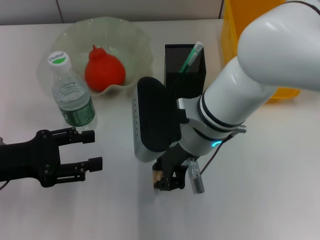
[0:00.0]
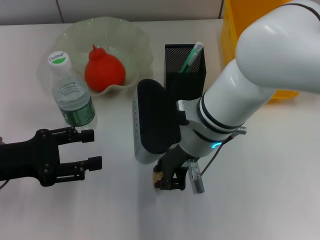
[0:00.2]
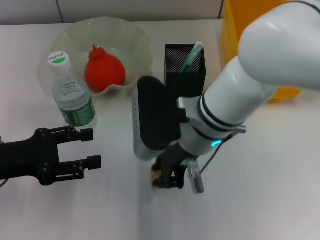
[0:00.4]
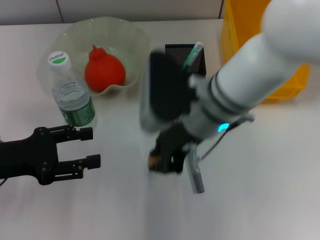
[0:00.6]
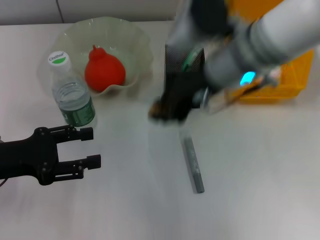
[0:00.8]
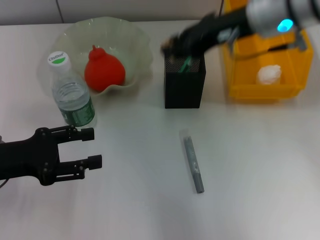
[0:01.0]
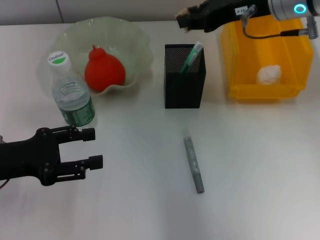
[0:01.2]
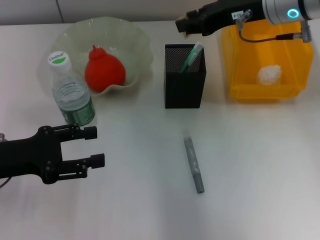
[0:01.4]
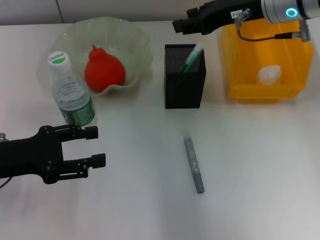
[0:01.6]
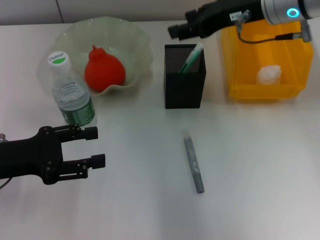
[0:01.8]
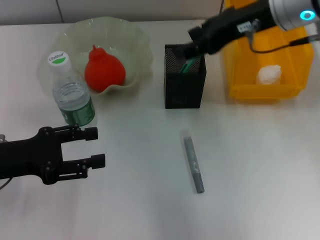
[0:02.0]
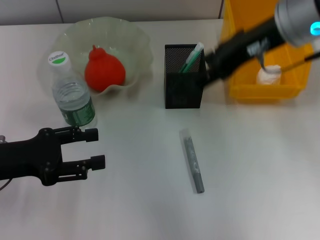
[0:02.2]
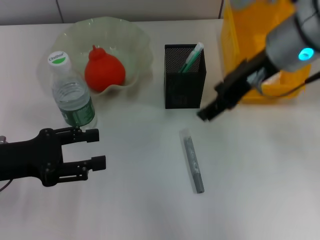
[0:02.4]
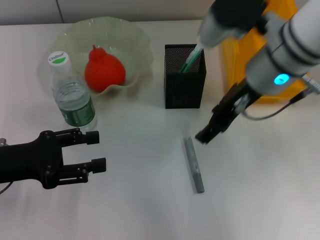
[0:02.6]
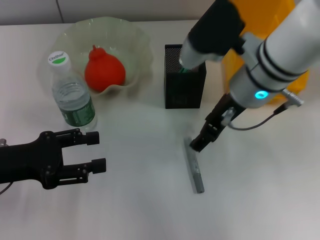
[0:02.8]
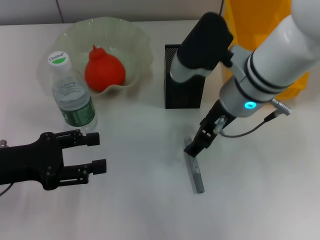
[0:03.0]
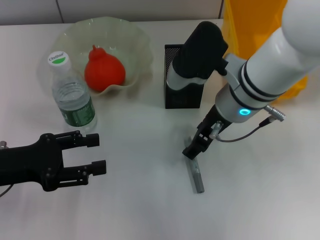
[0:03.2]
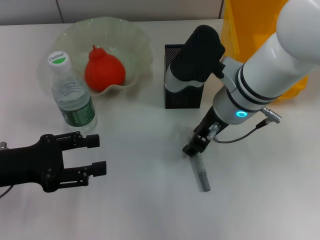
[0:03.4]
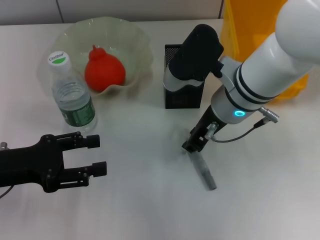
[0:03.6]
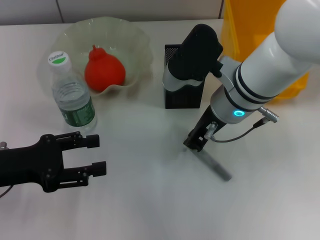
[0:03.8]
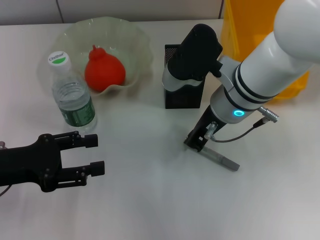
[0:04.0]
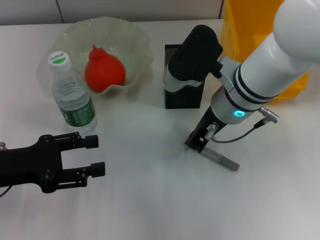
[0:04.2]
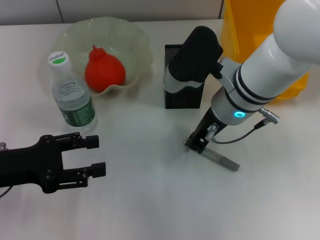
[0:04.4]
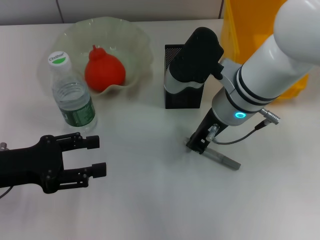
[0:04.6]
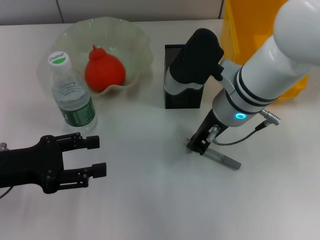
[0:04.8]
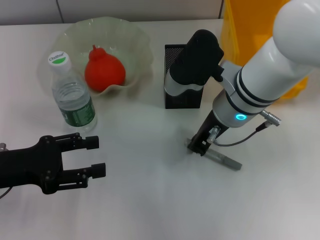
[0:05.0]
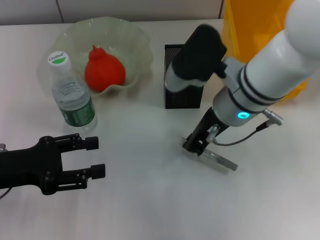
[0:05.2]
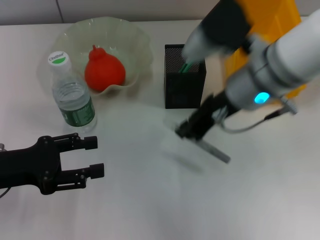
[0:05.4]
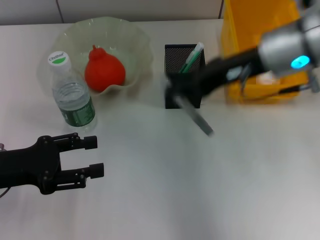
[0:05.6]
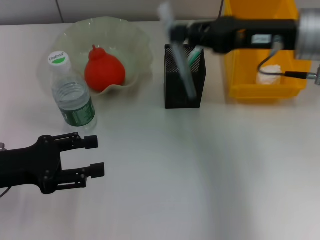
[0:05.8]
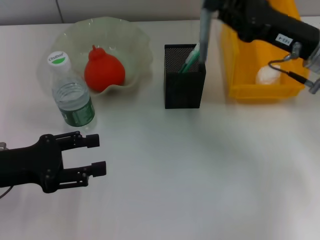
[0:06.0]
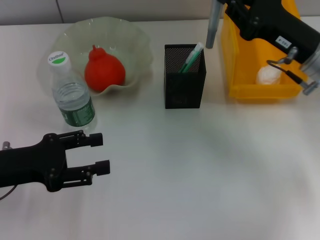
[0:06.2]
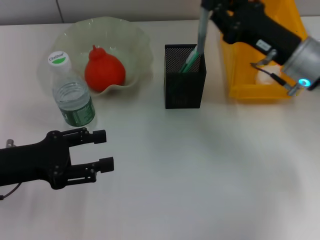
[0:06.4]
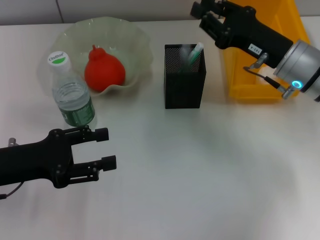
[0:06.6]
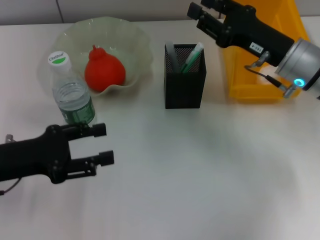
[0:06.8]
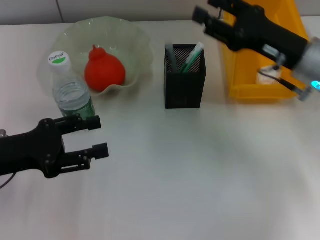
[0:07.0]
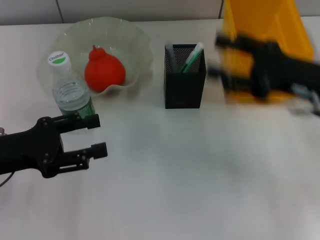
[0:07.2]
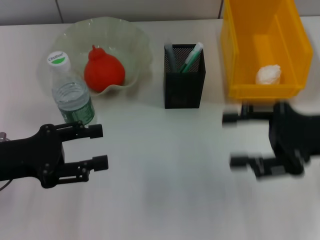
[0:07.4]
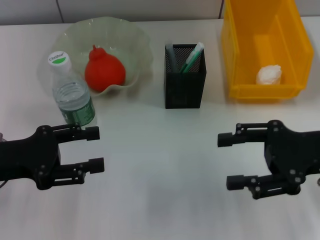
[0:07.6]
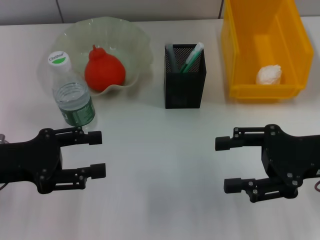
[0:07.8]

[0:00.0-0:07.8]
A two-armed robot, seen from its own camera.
Step, 0:00.2 to 0:01.8: Put the eraser into the pen holder with the right hand.
Step, 0:02.0 to 0:04.6: Grab the gray glue with the right hand.
Step, 0:05.0 to 0:06.8: Place the gray glue into the pen holder with the right hand.
0:00.0 to 0:01.6: The right gripper travels to the right, forward and upward by approximately 20 cm.
0:01.6 to 0:03.2: The right gripper is displaced downward, to the left and backward by approximately 10 cm, and opens up.
0:03.2 to 0:04.6: The right gripper closes its fingers.
0:04.6 to 0:06.2: The right gripper goes approximately 15 cm to the right.
0:06.2 to 0:07.8: The right gripper moves backward, roughly 10 cm, and opens its fingers.
